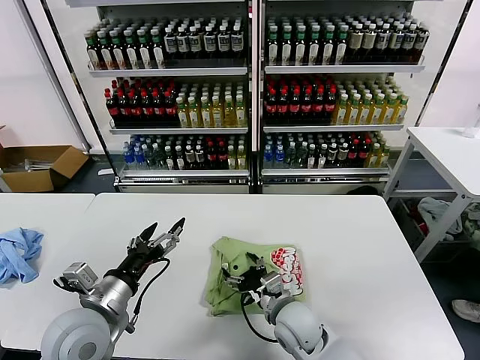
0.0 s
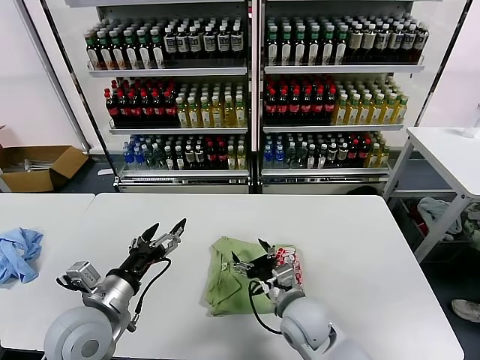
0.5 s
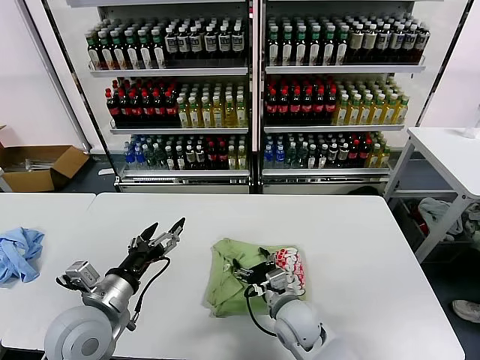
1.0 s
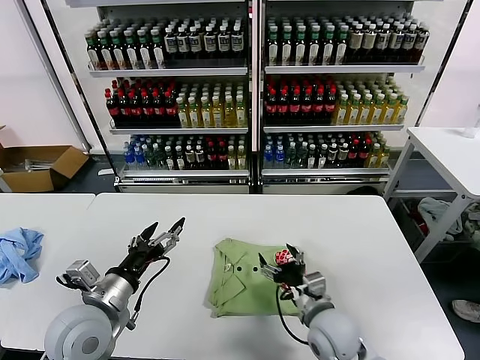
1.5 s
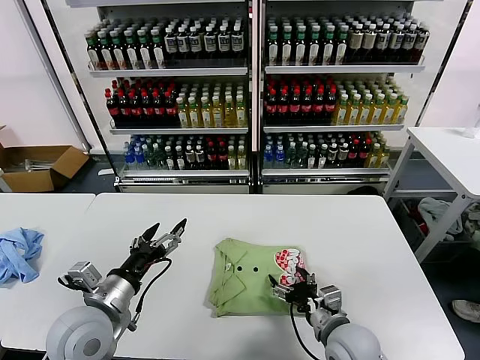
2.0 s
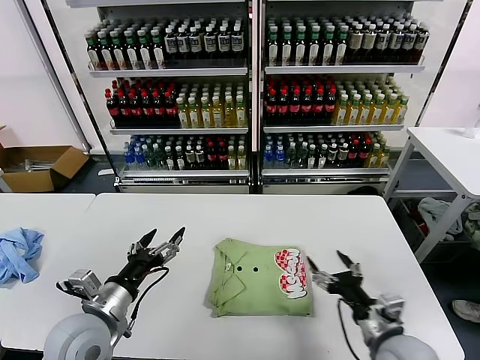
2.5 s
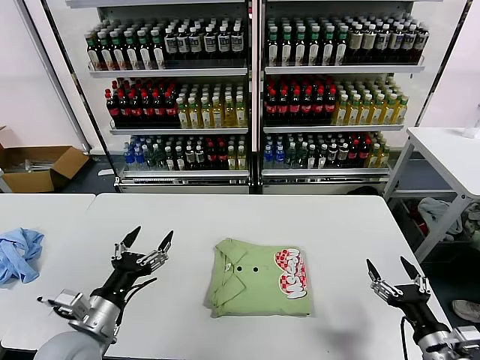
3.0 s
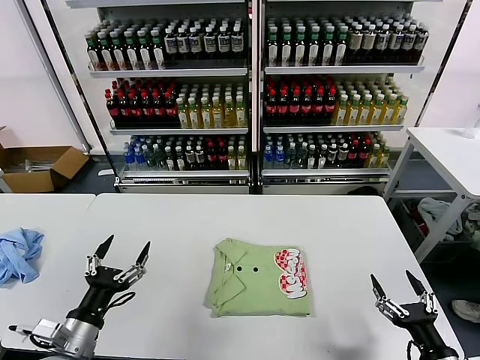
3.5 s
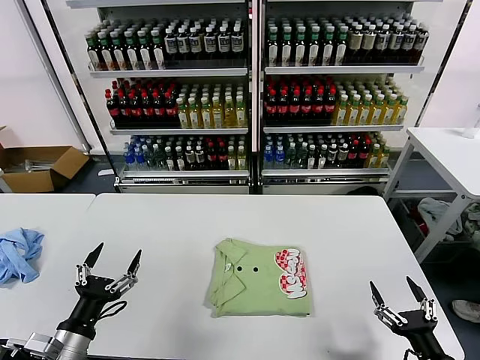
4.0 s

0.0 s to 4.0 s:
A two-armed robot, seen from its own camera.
Task of the whole recording: fold and organize the clothes.
Step, 0.0 to 2.0 s: Drag the clothes to the center of the table.
0.0 to 2.0 s: The right gripper moves to the right and backward, approximately 10 cm.
2.0 to 4.0 s: The right gripper moves to the right and backward, approximately 20 cm; the left gripper travels backward, downward and to the left by about 10 cm.

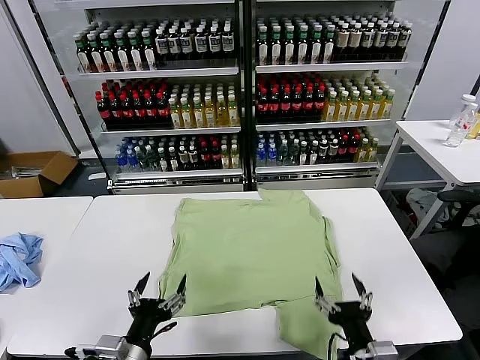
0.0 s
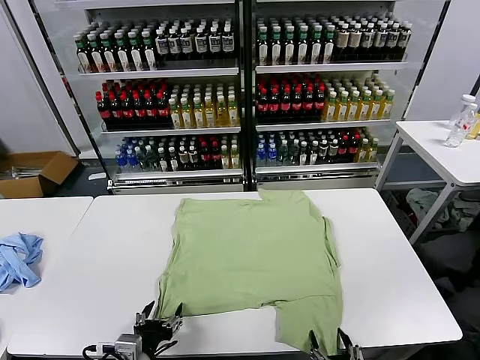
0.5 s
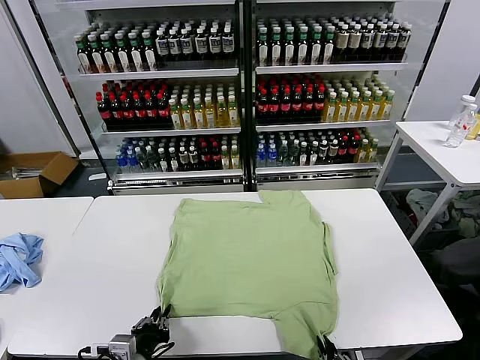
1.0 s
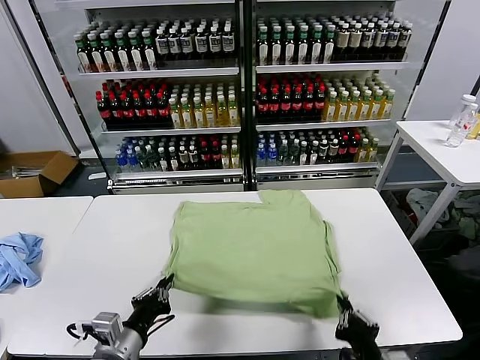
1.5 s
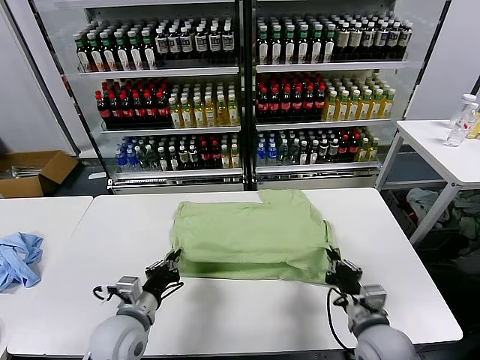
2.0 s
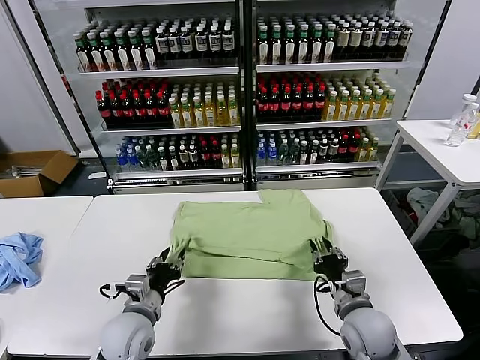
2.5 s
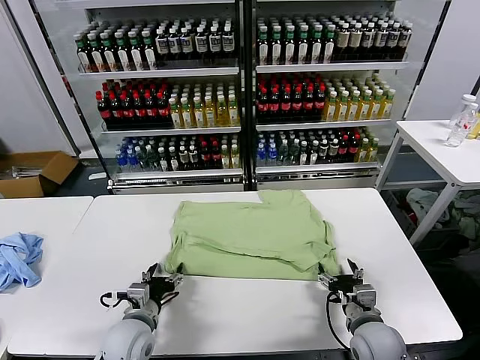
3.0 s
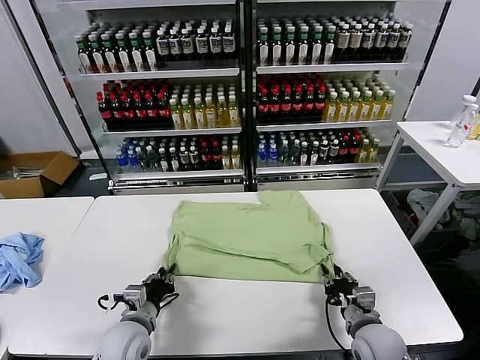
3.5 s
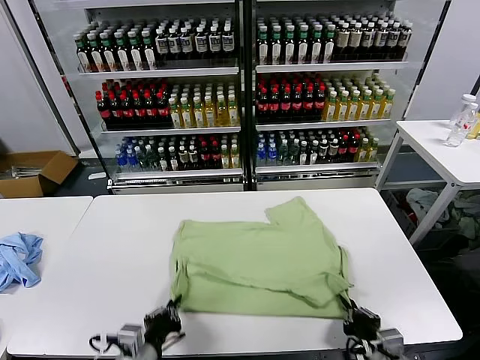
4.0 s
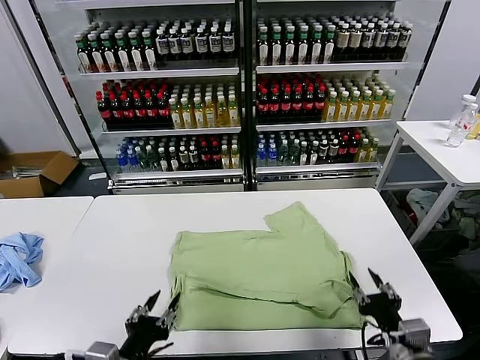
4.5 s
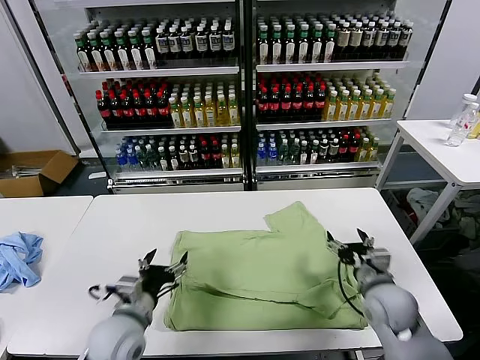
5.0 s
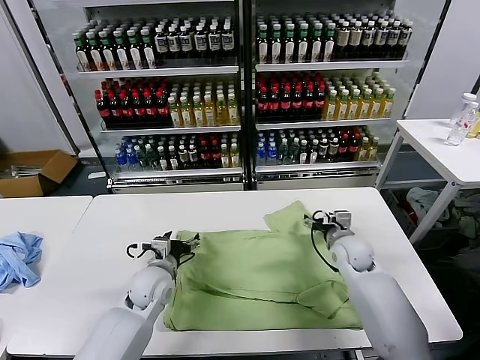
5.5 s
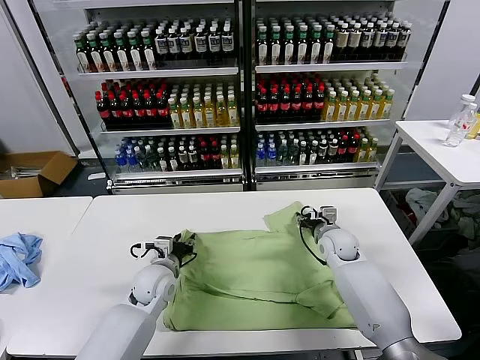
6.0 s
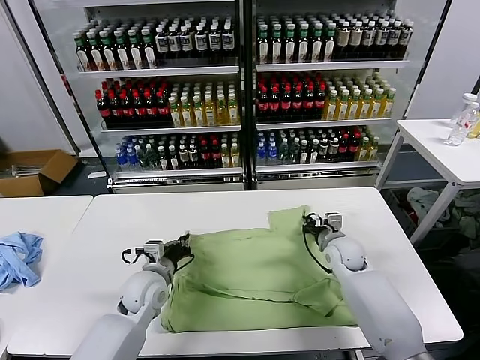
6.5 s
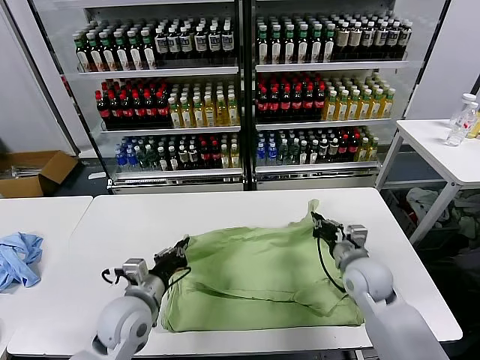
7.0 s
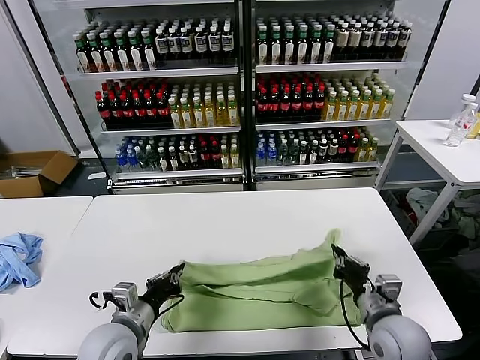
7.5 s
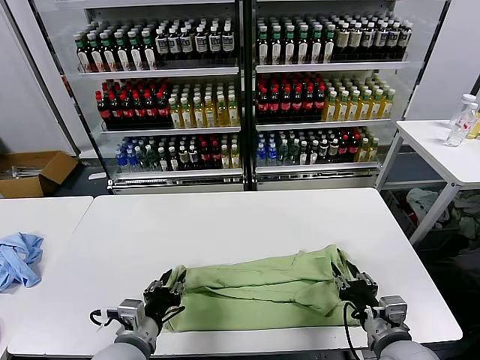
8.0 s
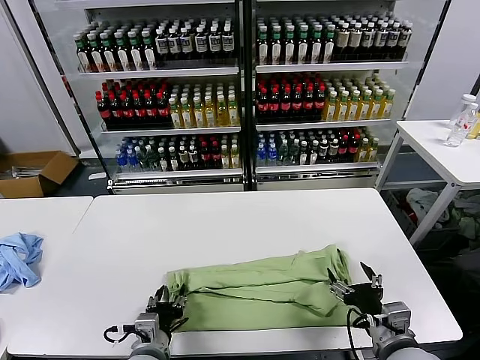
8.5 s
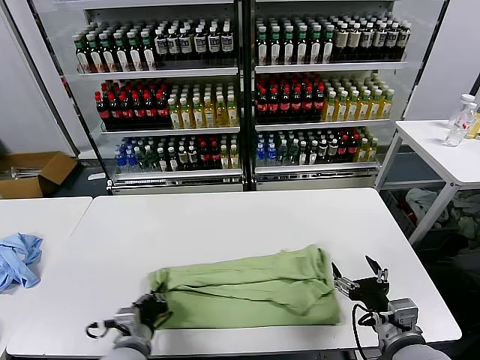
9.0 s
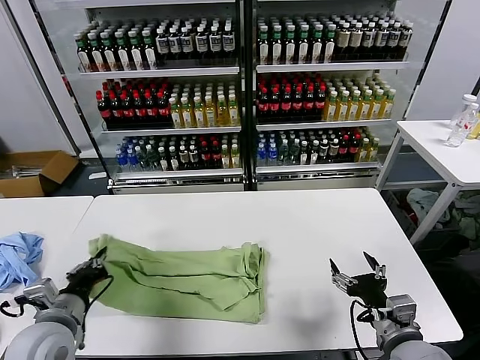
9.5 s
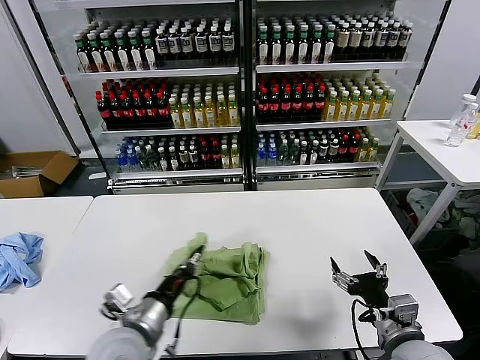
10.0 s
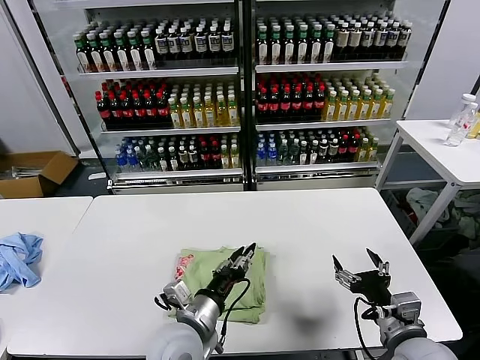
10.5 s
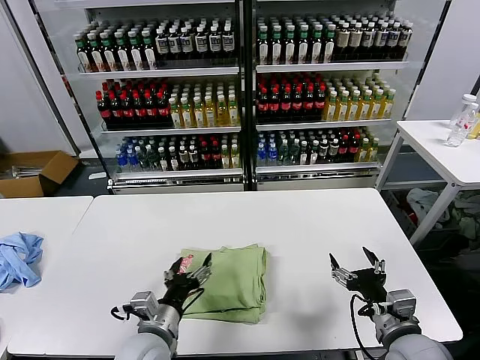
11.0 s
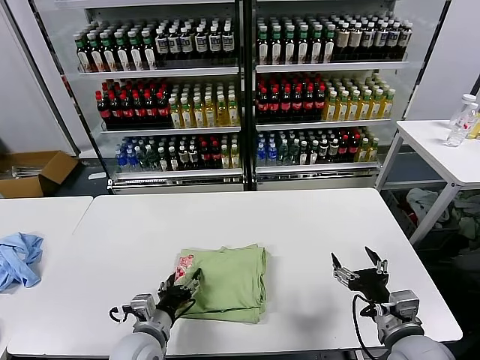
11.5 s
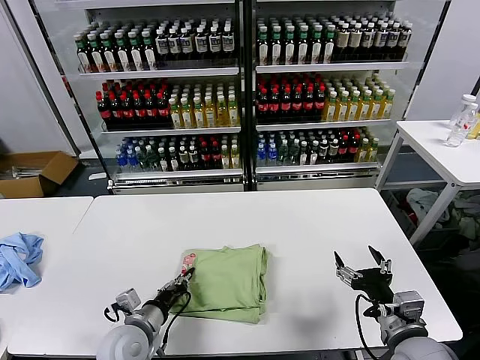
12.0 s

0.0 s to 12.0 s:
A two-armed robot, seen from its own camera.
Task of the whole recording: fold and organize the clothes.
Step, 0.0 to 1.0 s: use both grippers simultaneously to clamp the lower edge of the clothing fabric.
Step, 1.5 to 2.5 s: use both grippers to drag the lower edge of the fabric forward and fold it over the upper edge.
Step, 3.0 to 4.0 s: Drag the clothes downward with both gripper.
Step, 4.5 to 6.0 s: use both grippers simultaneously to clamp the upper edge of the clothing fabric.
Step, 7.0 to 8.0 s: use both grippers to drag the upper edge of the fabric backward and fold it over the lower edge.
Step, 8.5 to 9.0 s: use the left gripper to clamp the left edge of the fabric.
Step, 9.5 to 10.5 s: use the left gripper to drag the left edge of the fabric to the left and folds it over the right edge.
2.0 to 4.0 s: The grippers both shift backward by about 10 cm. The right gripper opens, then closes again. The left gripper opens, then closes again.
4.0 to 6.0 s: The right gripper travels forward by about 35 cm, and opens its fingers; the left gripper moves forward, about 25 cm, and opens up.
6.0 to 8.0 s: The right gripper is displaced backward by about 30 cm, and closes and opens again; the left gripper moves backward, approximately 20 cm, and closes and opens again.
8.0 to 10.0 s: The right gripper opens its fingers. The left gripper moves roughly 10 cm to the left and comes back, and closes.
10.0 to 12.0 s: The left gripper moves downward, approximately 10 cm, travels to the right and back again, some 10 cm each way, and opens, then closes once more.

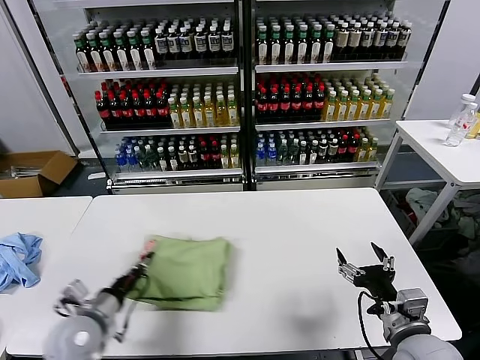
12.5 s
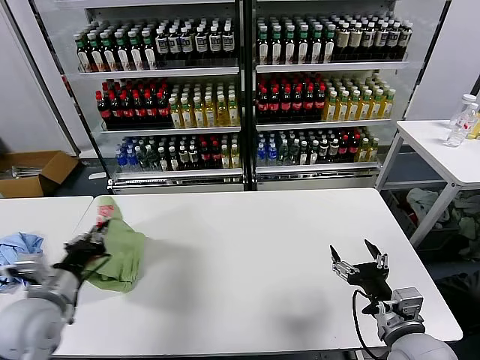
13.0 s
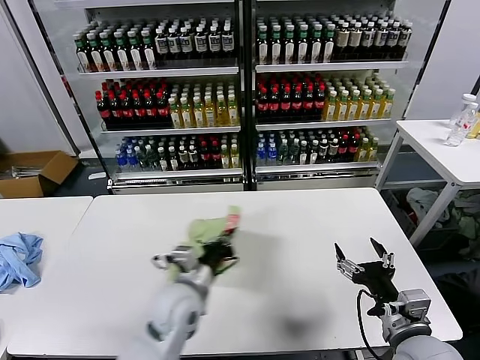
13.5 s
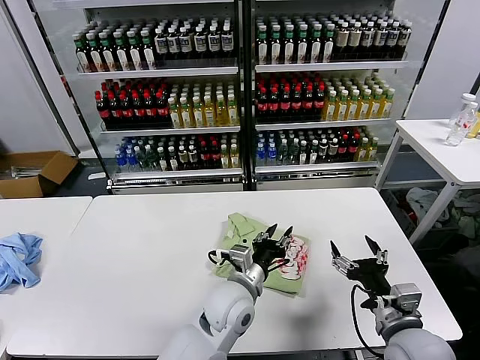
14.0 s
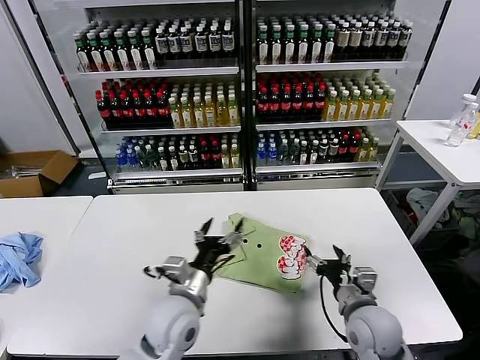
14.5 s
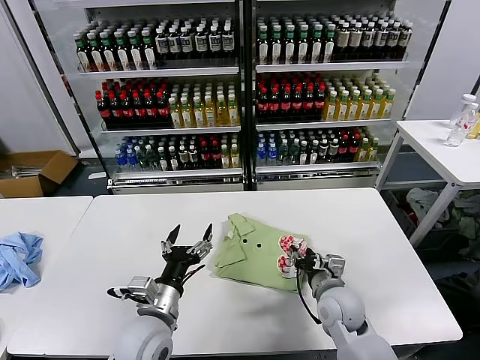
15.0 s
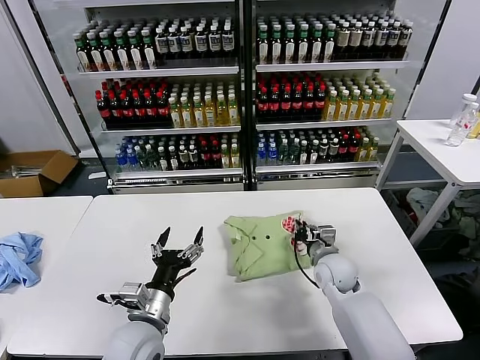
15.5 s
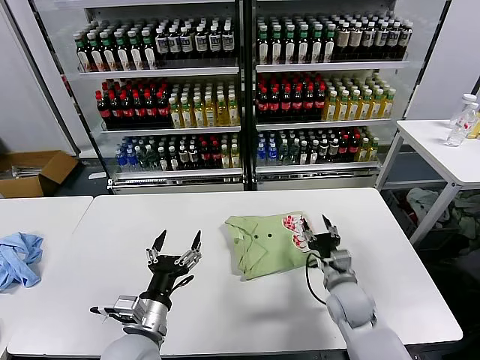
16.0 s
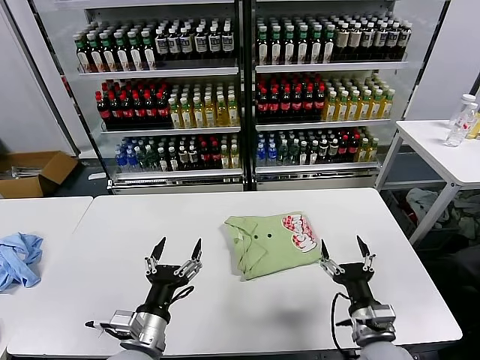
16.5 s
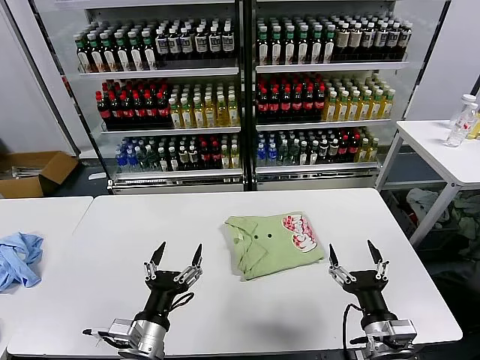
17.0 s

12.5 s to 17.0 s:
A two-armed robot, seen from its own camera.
Task of the whole recording: fold and organize the clothes.
Step, 14.5 to 15.5 s: Drag the clothes to the center of the table.
12.5 to 14.5 s: The right gripper heads forward, covering approximately 5 cm, while the left gripper goes left and right, approximately 35 cm each way, reversing 2 times, and opens.
14.5 to 17.0 s: The left gripper is displaced backward and to the left by approximately 15 cm; the right gripper goes approximately 10 cm backward, and closes, then reopens.
